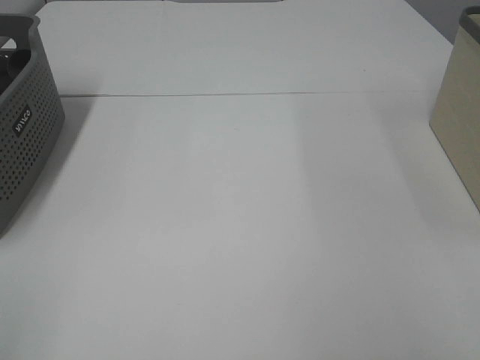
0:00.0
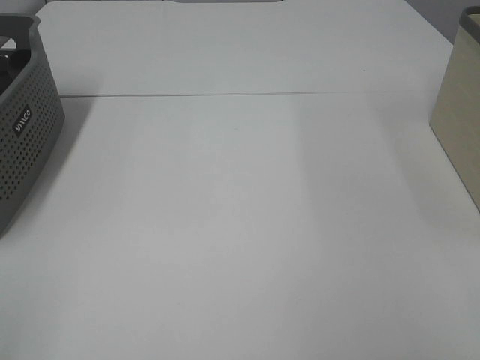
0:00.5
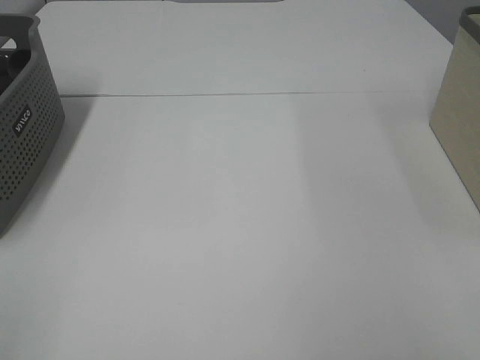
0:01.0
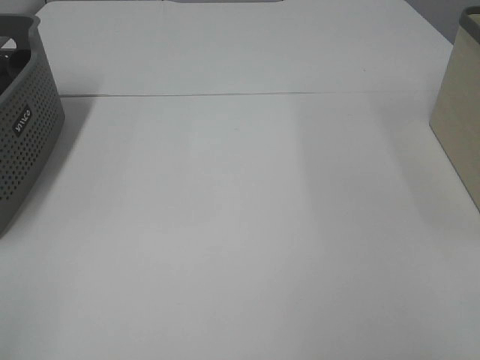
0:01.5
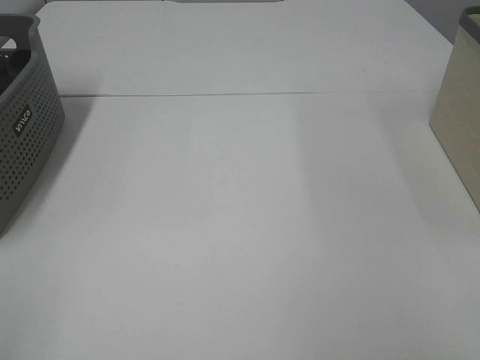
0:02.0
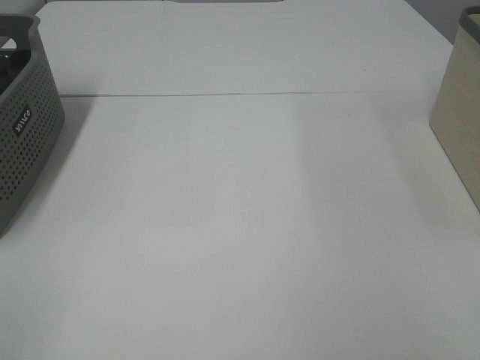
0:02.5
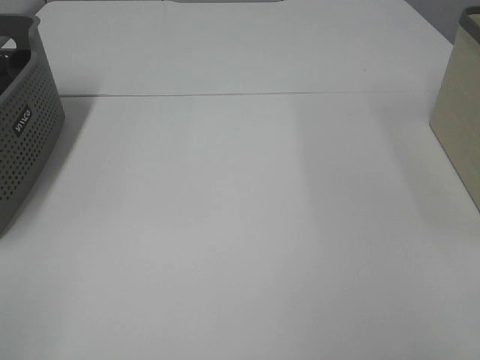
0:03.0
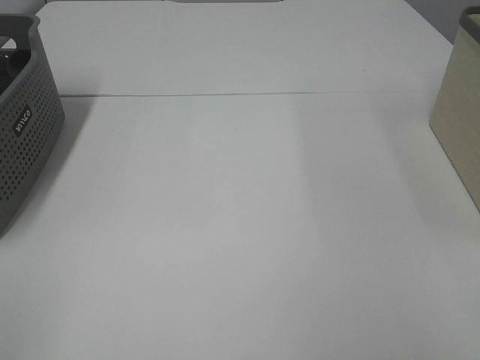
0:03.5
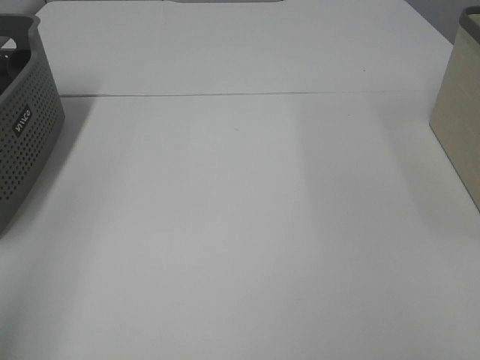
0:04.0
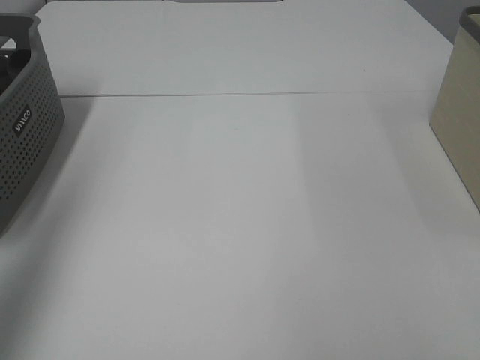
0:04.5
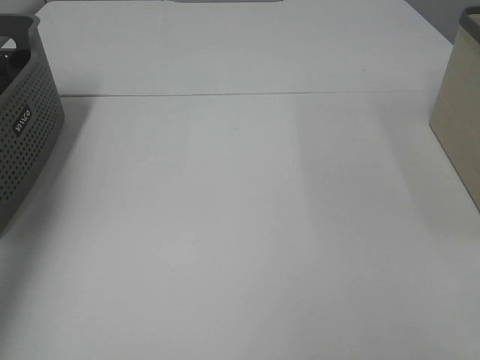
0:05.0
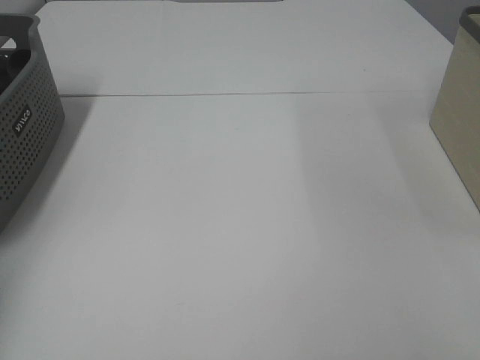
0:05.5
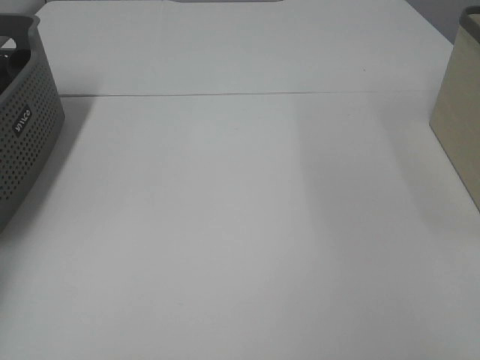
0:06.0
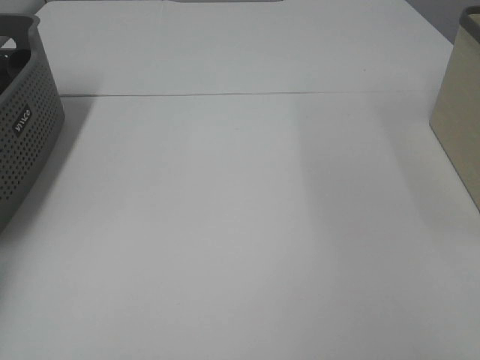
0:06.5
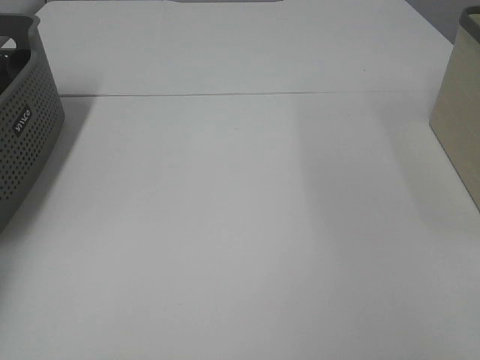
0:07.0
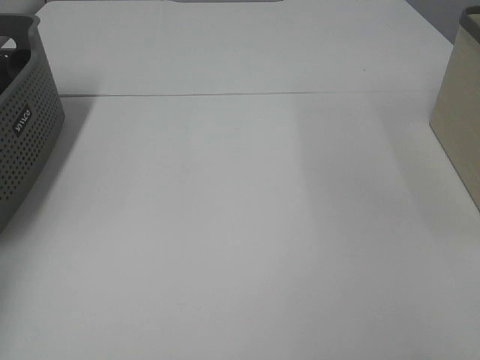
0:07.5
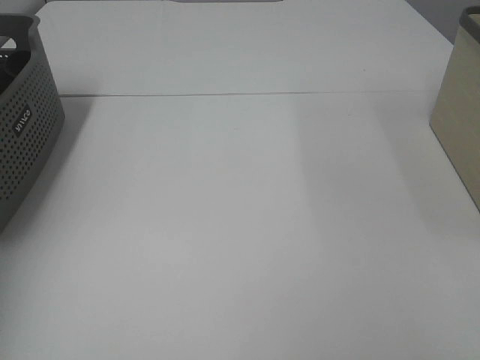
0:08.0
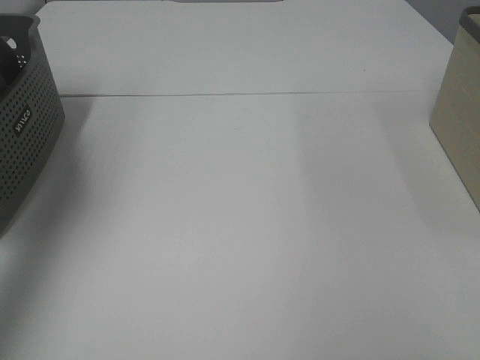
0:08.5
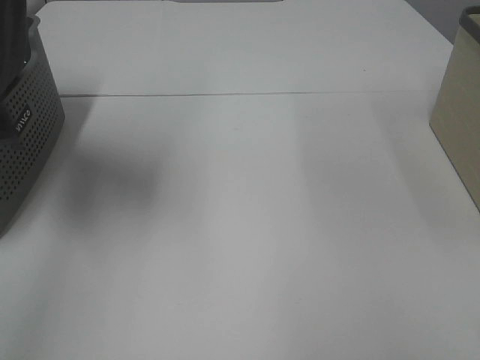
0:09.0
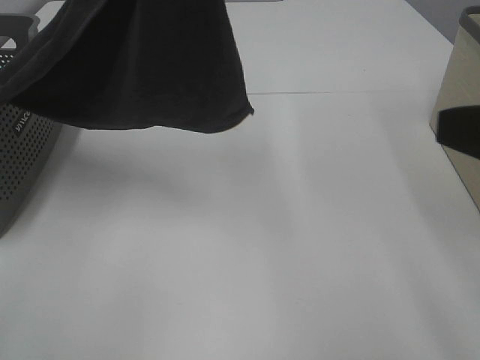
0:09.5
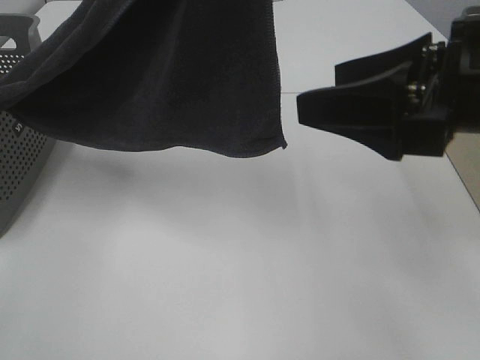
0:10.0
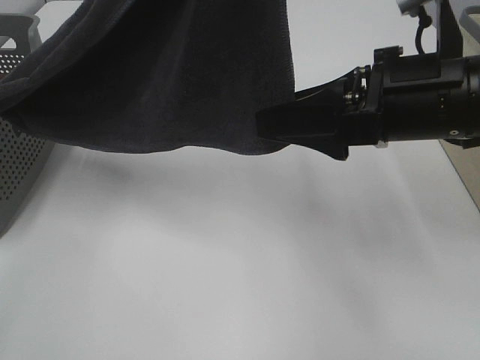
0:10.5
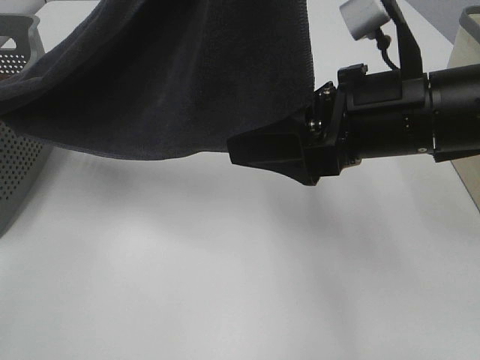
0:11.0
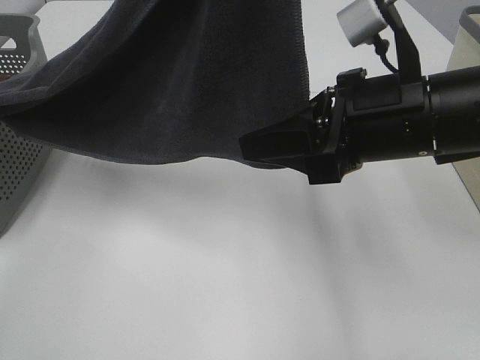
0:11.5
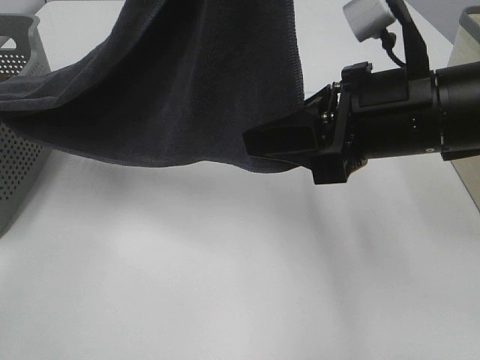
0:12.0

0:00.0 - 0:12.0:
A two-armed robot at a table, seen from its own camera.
Task of the whole recording: Remove the towel and place it.
0:00.0 - 0:02.0: Neither gripper changes place.
0:04.0 - 0:06.0: The left gripper travels forward and downward by roughly 40 cm.
0:08.0 - 0:10.0: The right gripper goes about 20 cm forward and to the left. The left gripper travels to the right by roughly 30 cm.
0:10.0 - 0:12.0: The right gripper ends up some 5 cm from where it was, and closes.

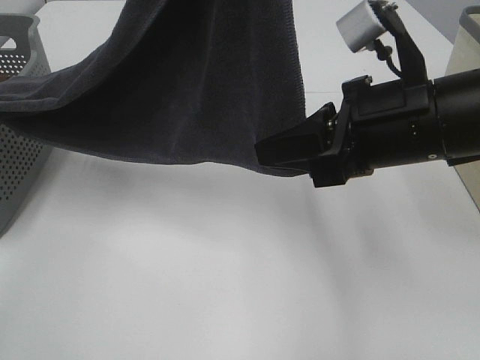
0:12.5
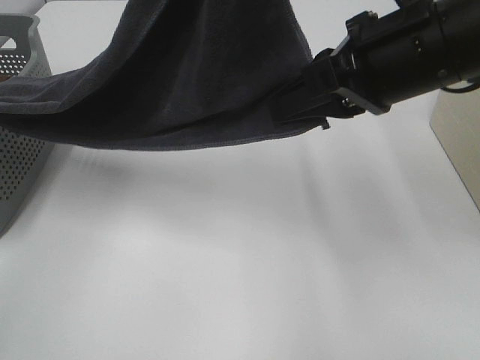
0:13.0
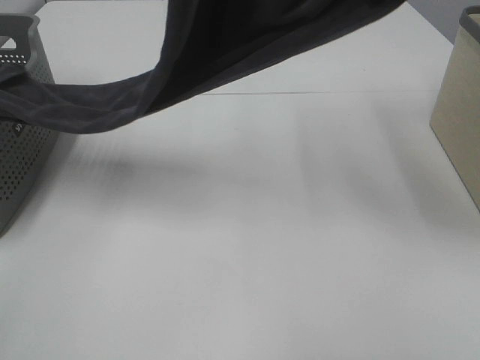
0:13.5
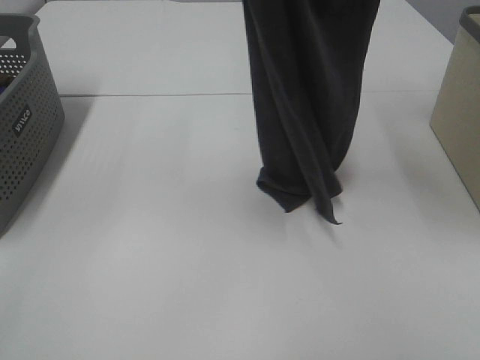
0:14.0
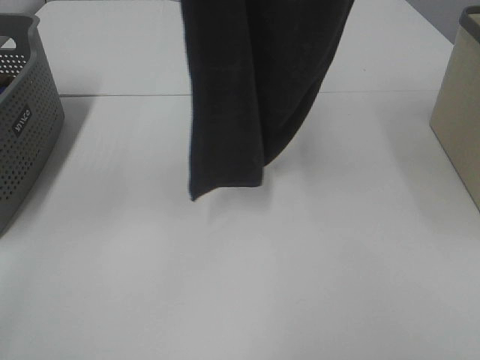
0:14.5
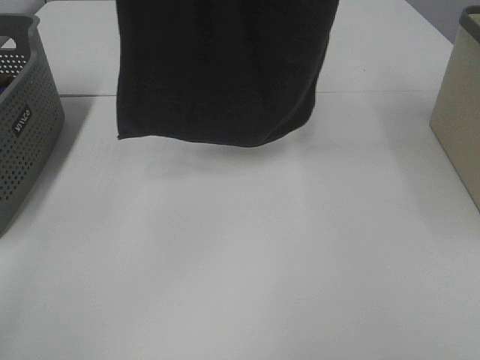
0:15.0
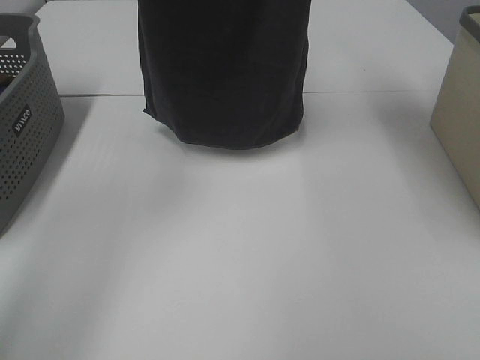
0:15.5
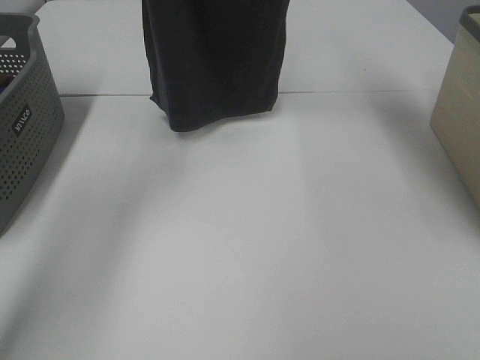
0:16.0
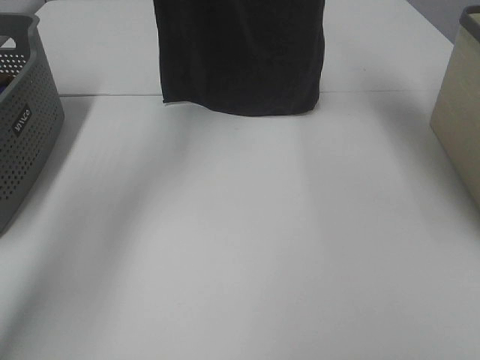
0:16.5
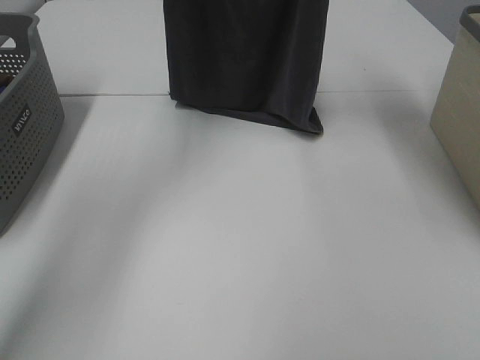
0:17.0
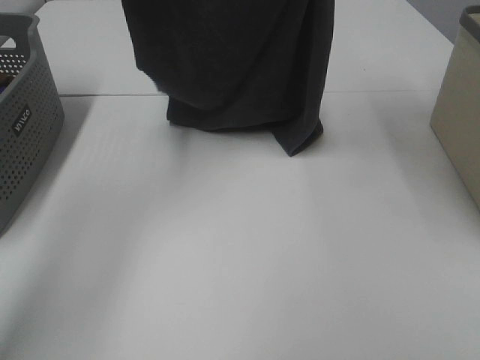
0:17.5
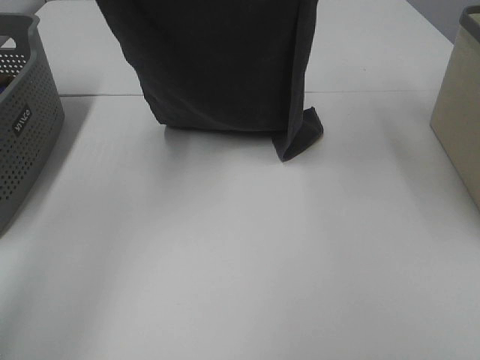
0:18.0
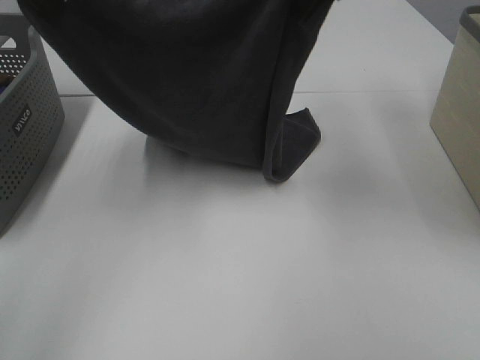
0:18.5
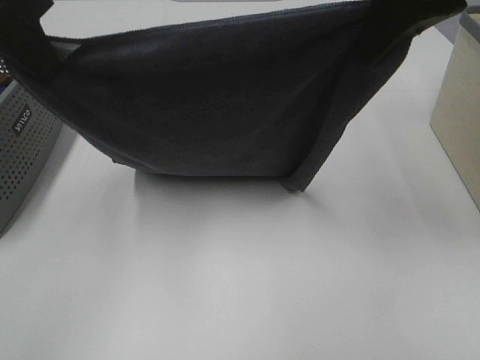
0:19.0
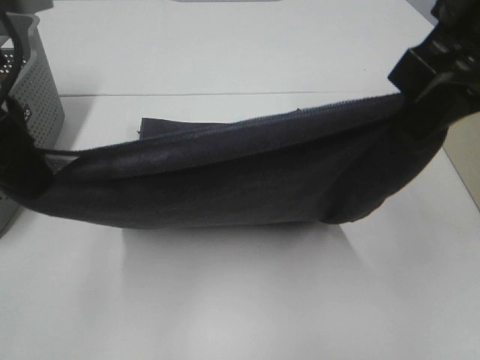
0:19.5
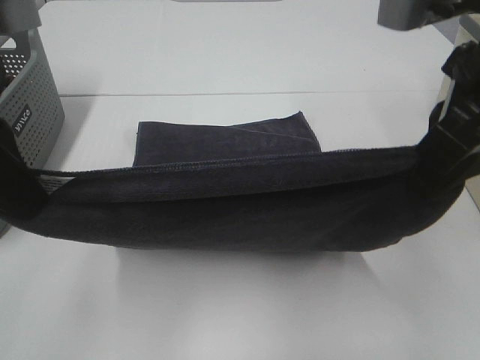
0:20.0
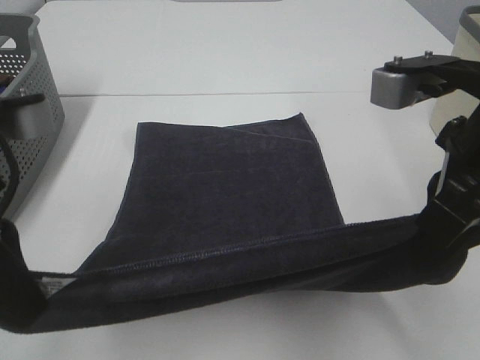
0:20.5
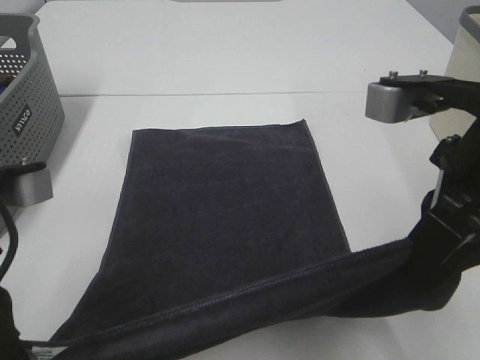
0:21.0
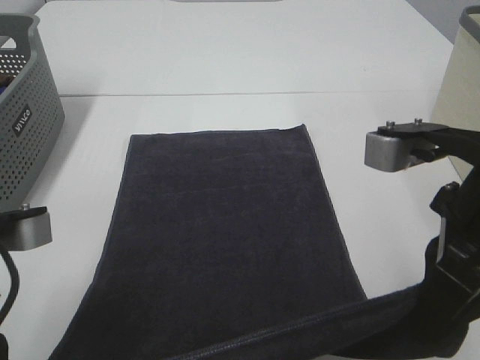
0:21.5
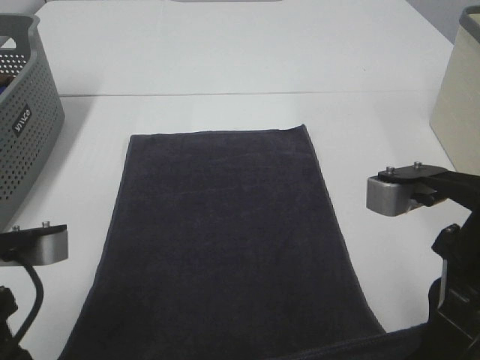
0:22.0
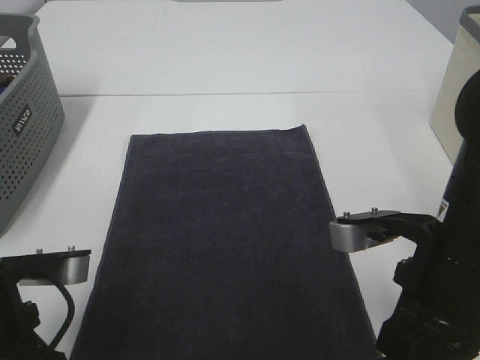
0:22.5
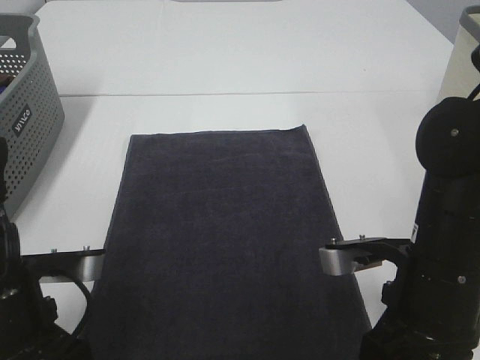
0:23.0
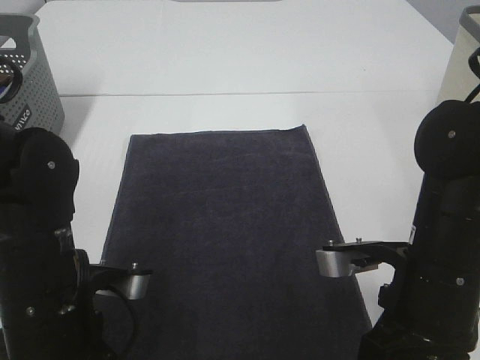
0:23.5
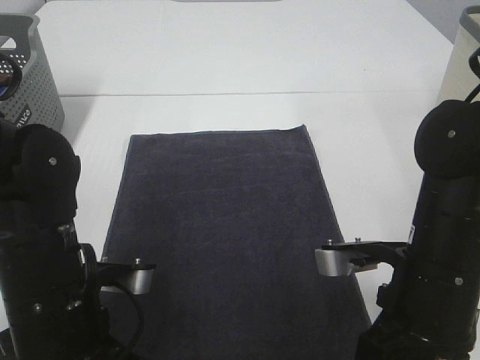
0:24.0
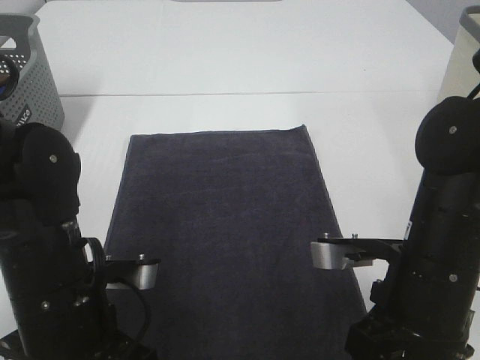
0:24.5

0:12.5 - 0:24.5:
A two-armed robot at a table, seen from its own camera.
Task of the whole recording: Remove the towel and place it.
Step, 0:13.5 - 0:19.5: Left hand: spread the grey towel flat on the table.
Step, 0:13.5 - 0:19.5: Right hand: spread the grey towel flat on the table.
0:12.5 - 0:14.5: The right gripper travels upward by about 30 cm, while the left gripper goes roughly 5 cm upward and forward.
0:14.5 - 0:16.5: The right gripper travels forward by about 15 cm. The left gripper travels forward and downward by approximately 20 cm.
0:16.5 - 0:18.5: The left gripper moves backward, approximately 20 cm. Meanwhile the right gripper moves backward and downward, approximately 15 cm.
0:18.5 - 0:20.5: The right gripper is displaced backward, downward and to the right by about 20 cm. Meanwhile the left gripper moves backward and downward, roughly 20 cm.
0:20.5 - 0:22.5: Both grippers travel together downward, about 10 cm.
0:22.5 - 0:24.5: The left gripper ends up about 5 cm from where it was, and opens, while the right gripper opens up.

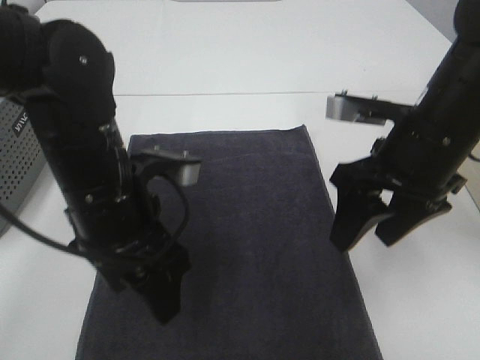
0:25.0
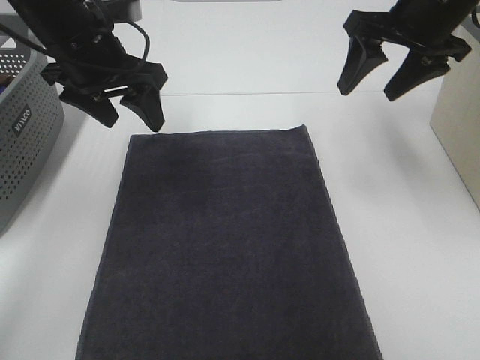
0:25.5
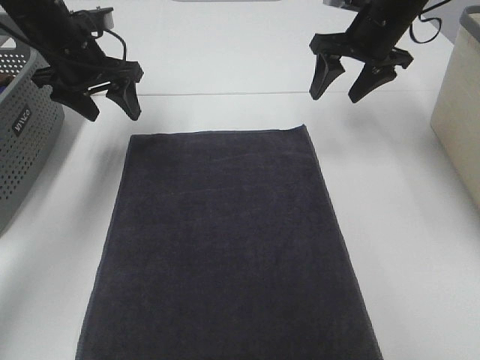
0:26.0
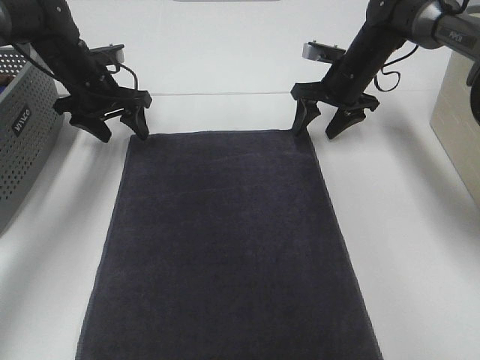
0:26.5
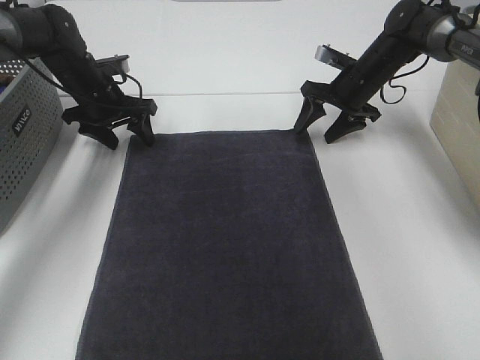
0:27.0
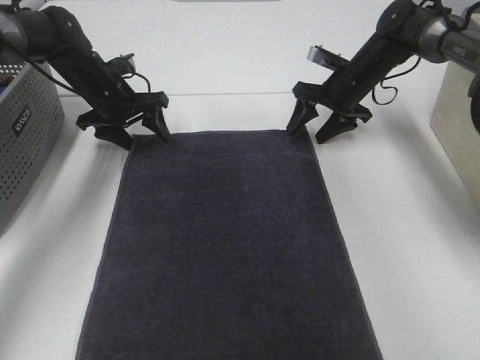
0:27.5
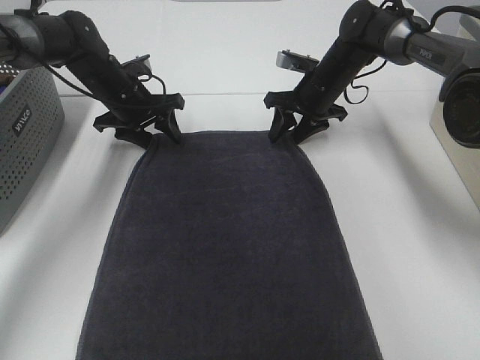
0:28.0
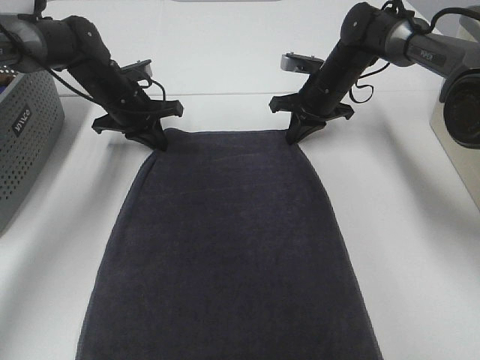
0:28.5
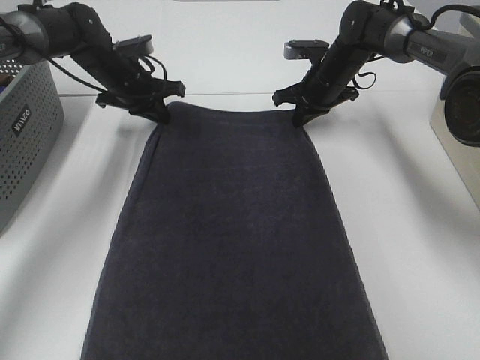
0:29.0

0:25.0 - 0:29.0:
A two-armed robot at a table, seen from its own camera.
Task of the whole recording: Remove the towel and place it.
0:25.0 - 0:27.0: The right gripper moves forward and downward, approximately 30 cm, while the left gripper travels forward and to the left by roughly 30 cm.
0:27.0 - 0:29.0: The left gripper closes, while the right gripper closes its fingers.
